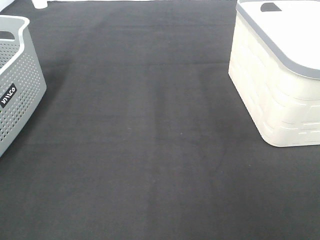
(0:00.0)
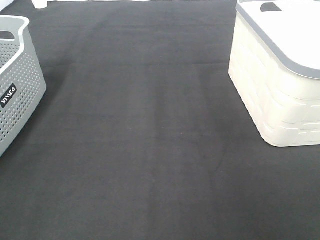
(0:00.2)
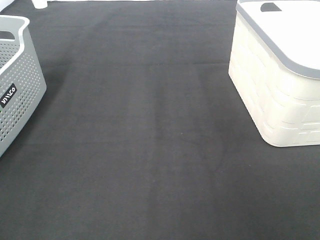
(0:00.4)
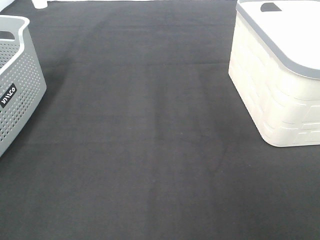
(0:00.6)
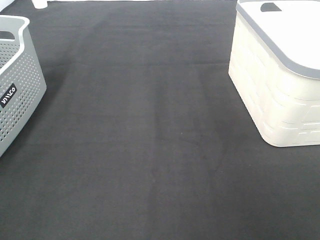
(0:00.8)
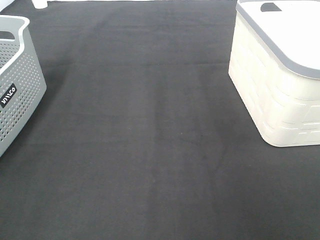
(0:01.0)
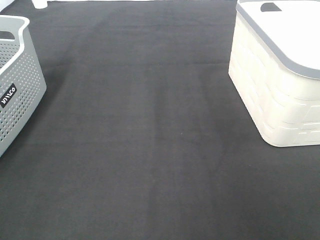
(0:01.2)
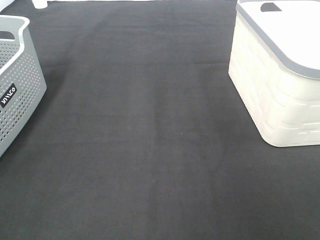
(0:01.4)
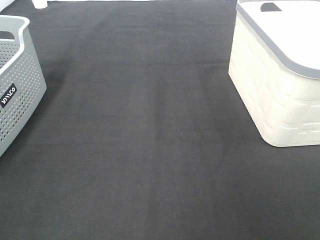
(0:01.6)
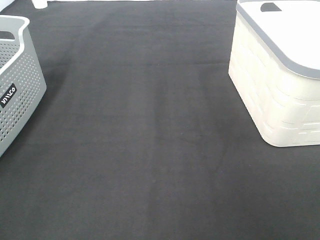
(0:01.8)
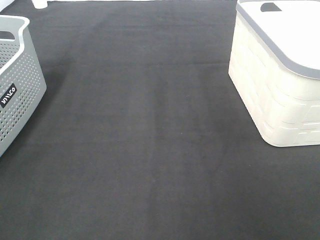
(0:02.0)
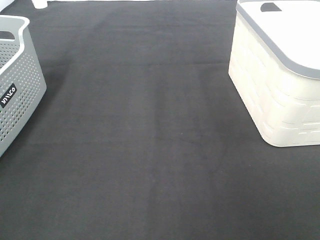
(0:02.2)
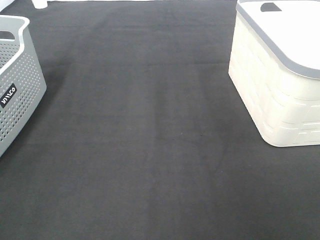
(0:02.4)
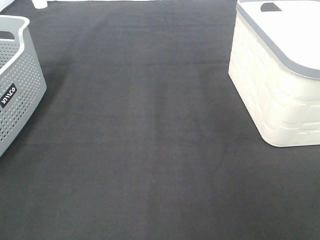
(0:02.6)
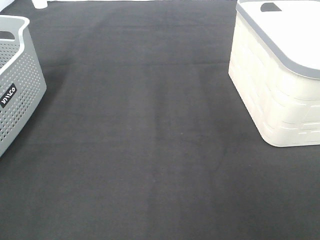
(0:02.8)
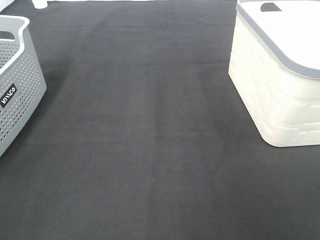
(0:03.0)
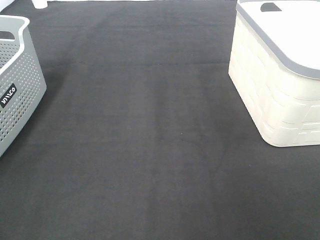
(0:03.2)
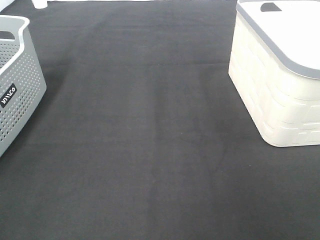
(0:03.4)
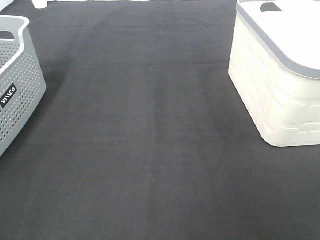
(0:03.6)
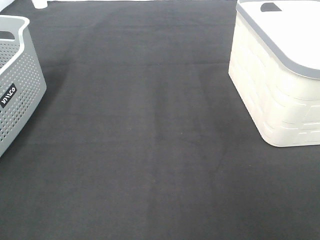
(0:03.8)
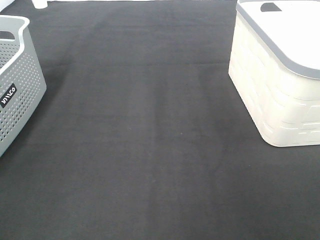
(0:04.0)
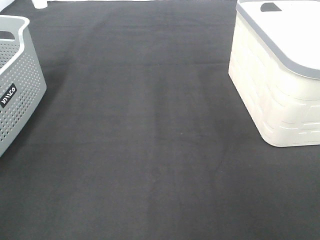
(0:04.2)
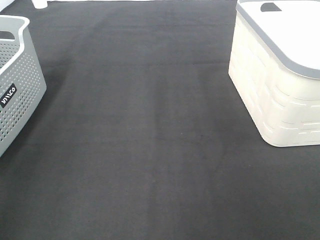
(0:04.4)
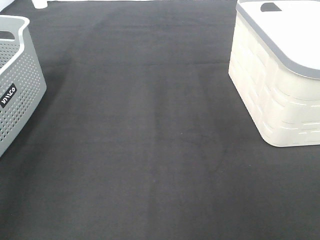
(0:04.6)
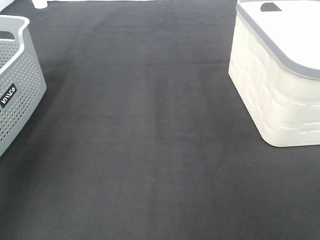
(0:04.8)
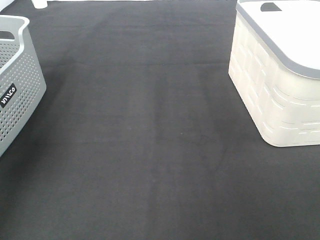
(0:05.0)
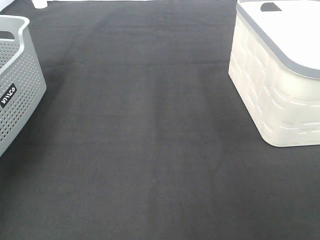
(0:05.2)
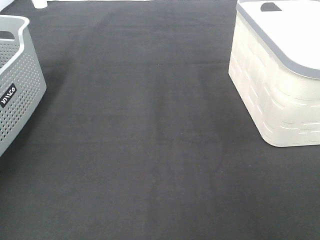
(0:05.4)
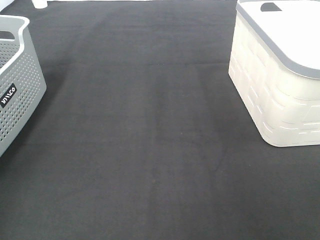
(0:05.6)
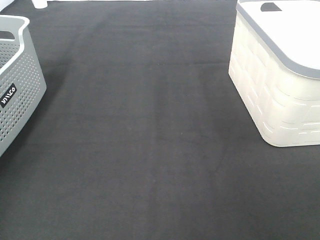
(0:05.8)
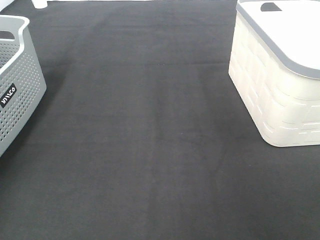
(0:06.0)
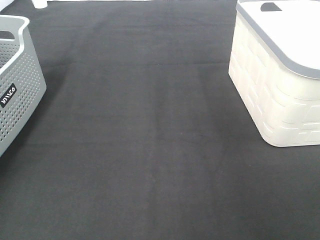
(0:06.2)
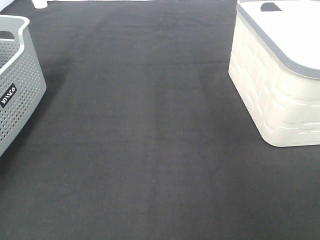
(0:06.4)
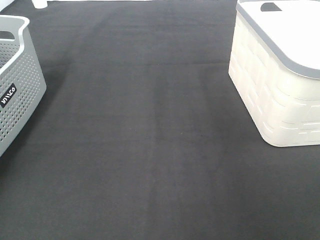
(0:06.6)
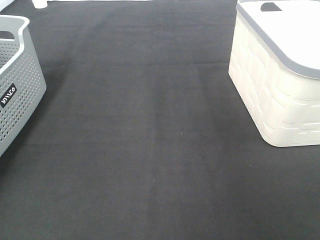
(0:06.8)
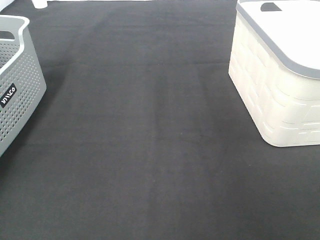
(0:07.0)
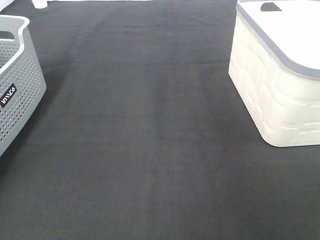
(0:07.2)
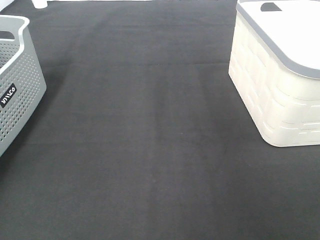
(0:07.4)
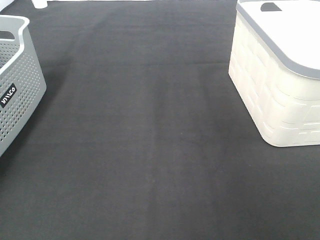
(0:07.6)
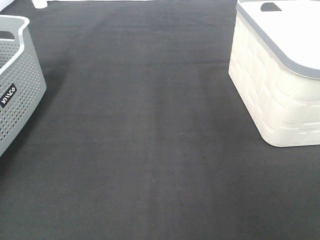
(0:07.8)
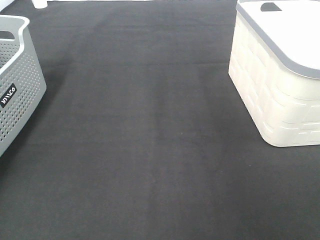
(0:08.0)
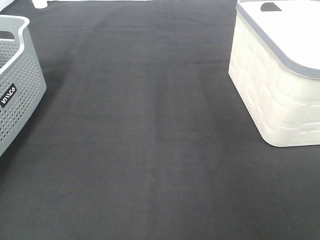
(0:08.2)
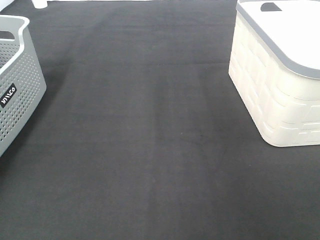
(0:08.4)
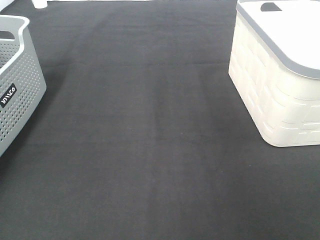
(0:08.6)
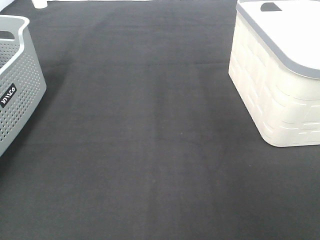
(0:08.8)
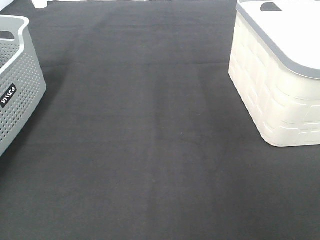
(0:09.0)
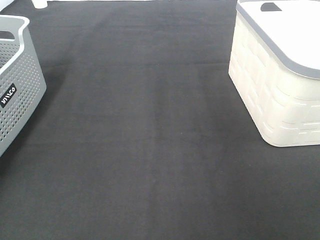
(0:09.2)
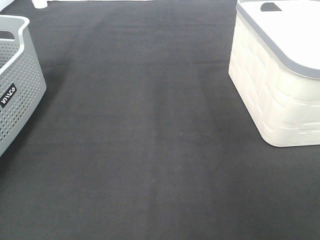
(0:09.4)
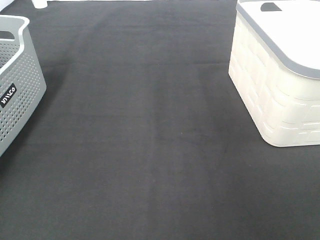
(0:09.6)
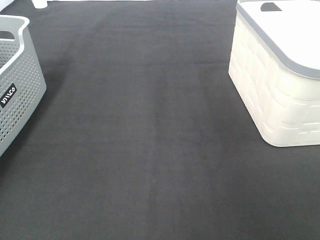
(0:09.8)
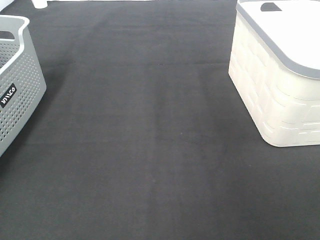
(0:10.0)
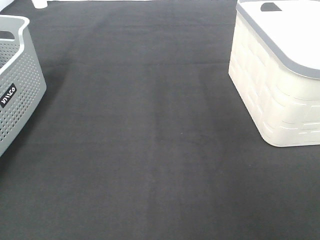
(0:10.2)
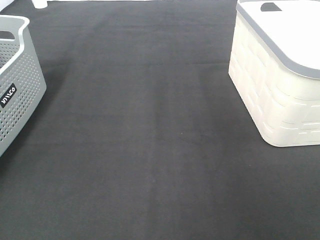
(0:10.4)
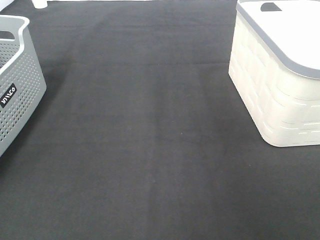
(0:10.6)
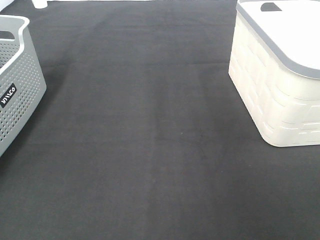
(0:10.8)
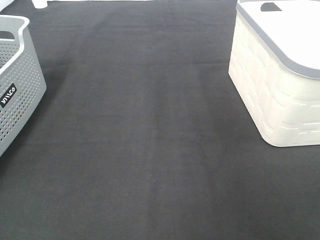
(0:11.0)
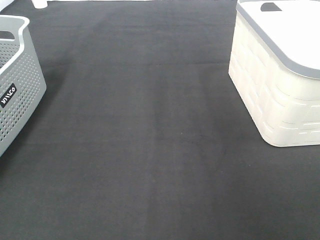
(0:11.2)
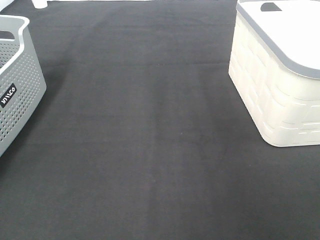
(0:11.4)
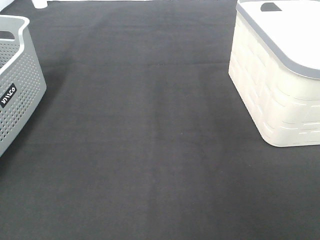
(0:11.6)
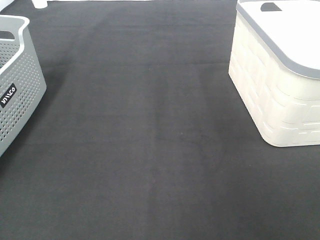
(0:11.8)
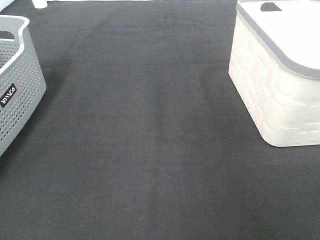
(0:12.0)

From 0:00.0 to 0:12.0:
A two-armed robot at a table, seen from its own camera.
Task of the whole recording: Remove the towel and place it.
From 0:00.0 to 0:03.0: Both grippers stay put.

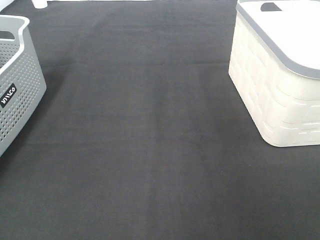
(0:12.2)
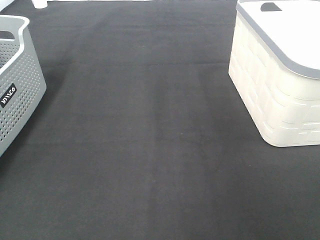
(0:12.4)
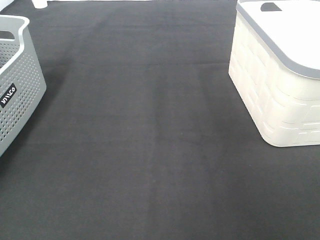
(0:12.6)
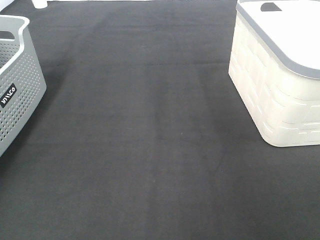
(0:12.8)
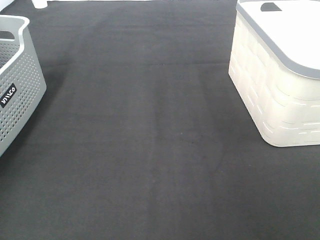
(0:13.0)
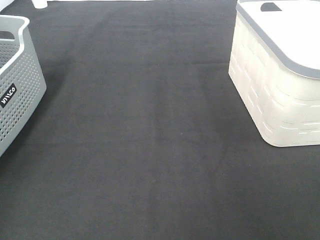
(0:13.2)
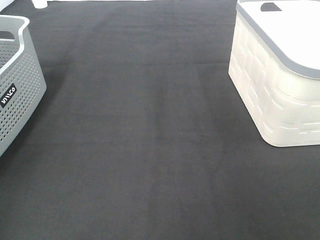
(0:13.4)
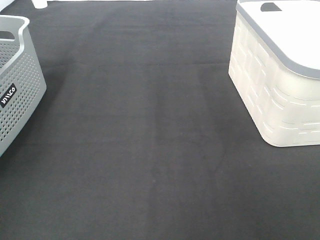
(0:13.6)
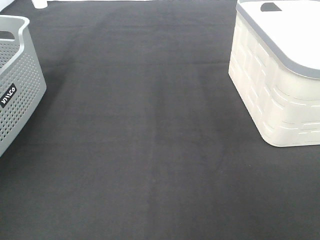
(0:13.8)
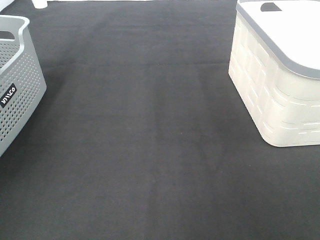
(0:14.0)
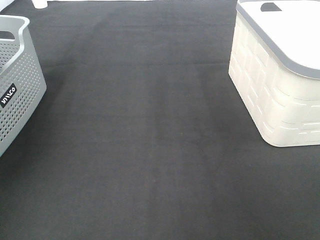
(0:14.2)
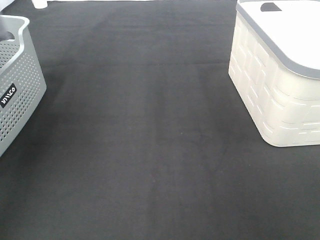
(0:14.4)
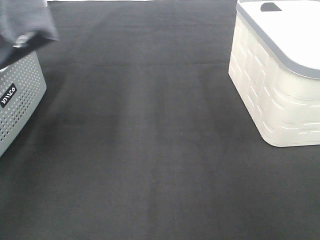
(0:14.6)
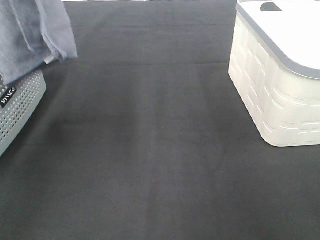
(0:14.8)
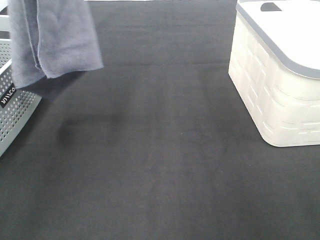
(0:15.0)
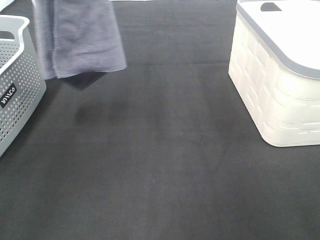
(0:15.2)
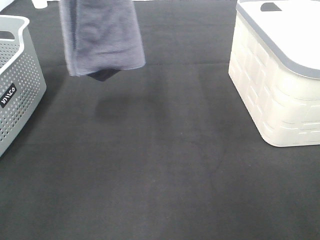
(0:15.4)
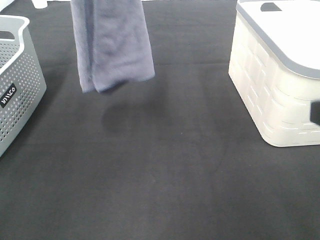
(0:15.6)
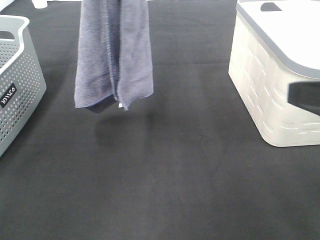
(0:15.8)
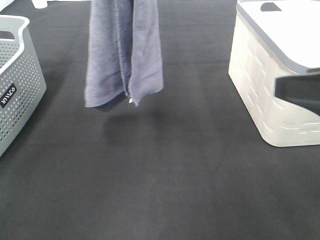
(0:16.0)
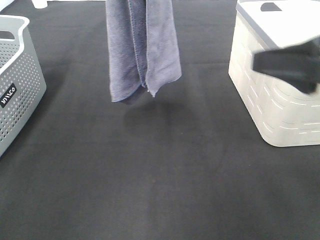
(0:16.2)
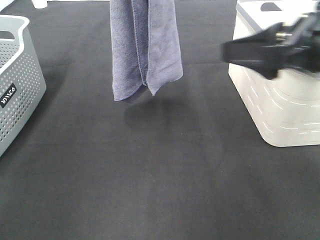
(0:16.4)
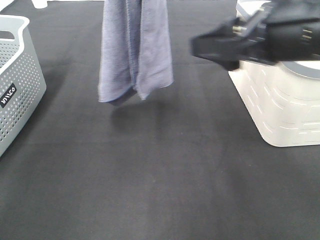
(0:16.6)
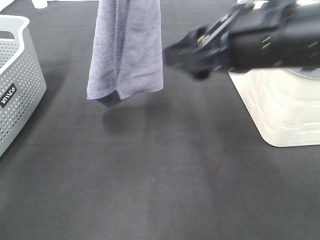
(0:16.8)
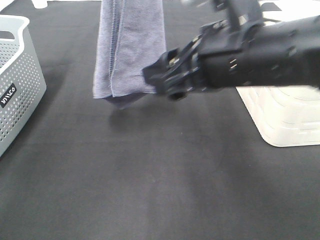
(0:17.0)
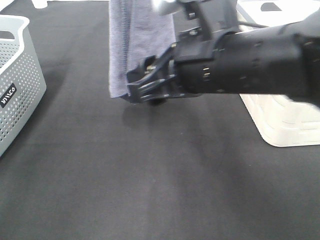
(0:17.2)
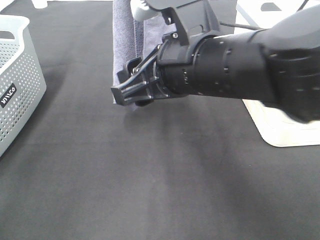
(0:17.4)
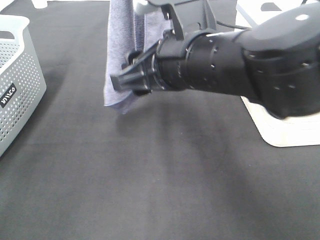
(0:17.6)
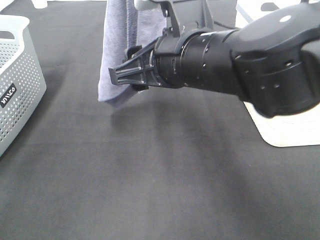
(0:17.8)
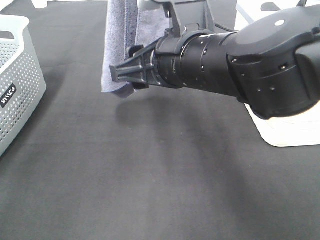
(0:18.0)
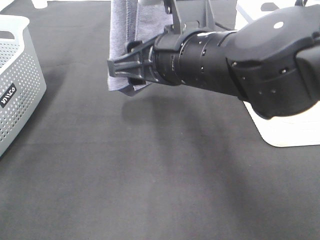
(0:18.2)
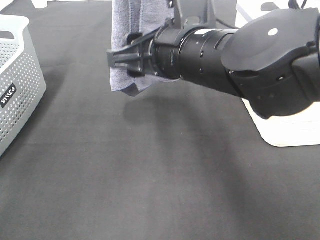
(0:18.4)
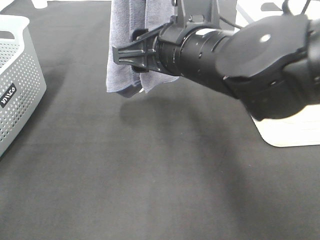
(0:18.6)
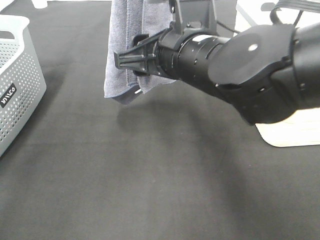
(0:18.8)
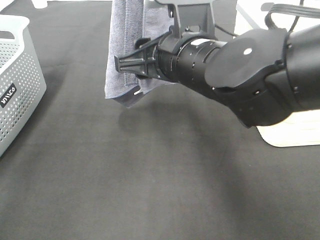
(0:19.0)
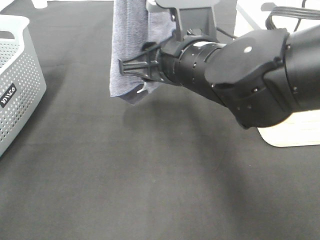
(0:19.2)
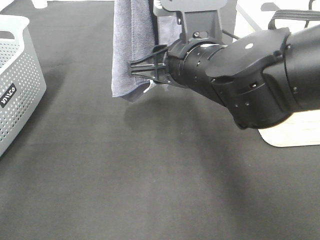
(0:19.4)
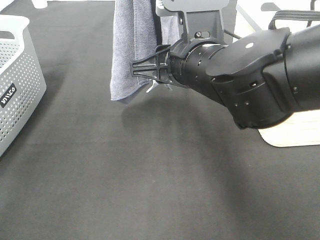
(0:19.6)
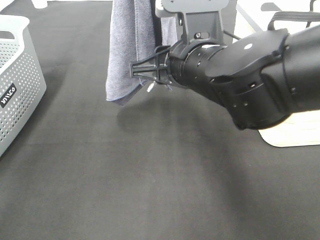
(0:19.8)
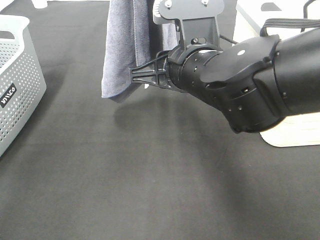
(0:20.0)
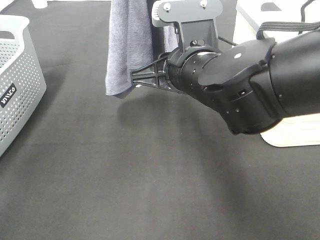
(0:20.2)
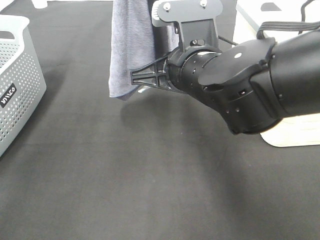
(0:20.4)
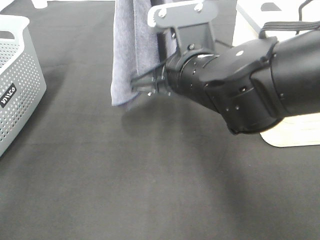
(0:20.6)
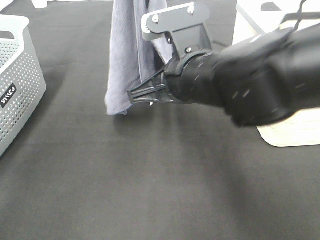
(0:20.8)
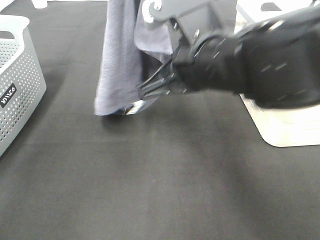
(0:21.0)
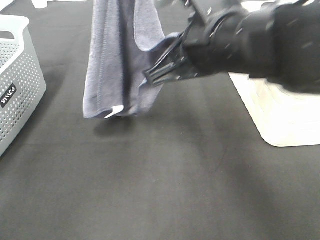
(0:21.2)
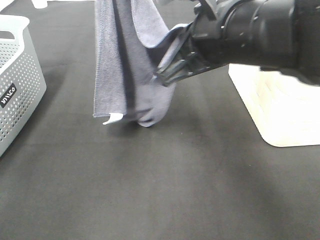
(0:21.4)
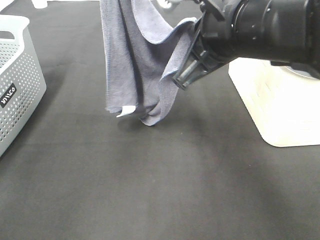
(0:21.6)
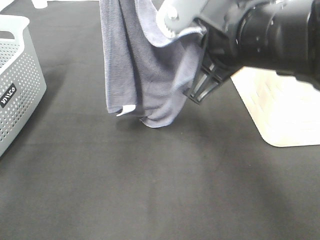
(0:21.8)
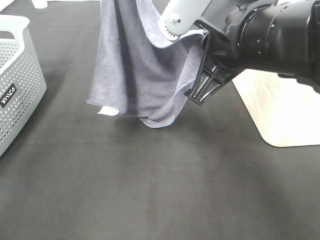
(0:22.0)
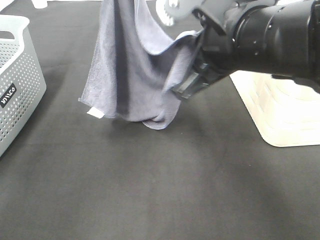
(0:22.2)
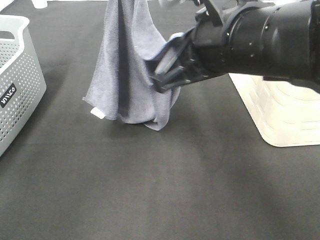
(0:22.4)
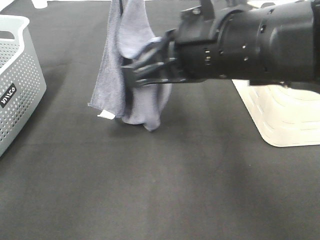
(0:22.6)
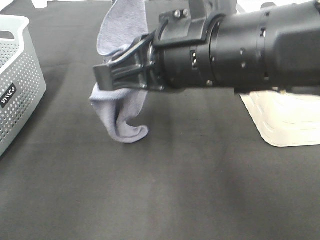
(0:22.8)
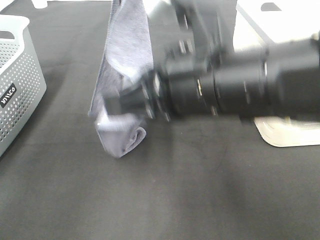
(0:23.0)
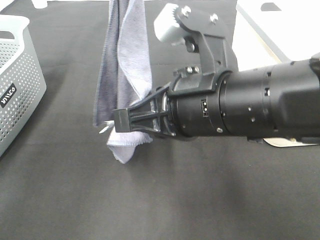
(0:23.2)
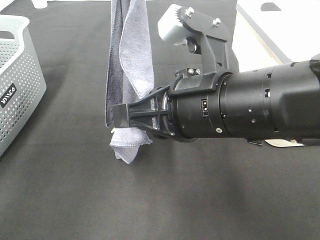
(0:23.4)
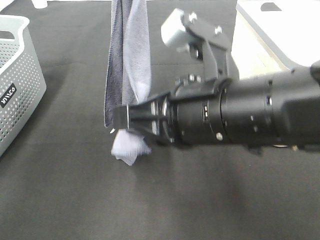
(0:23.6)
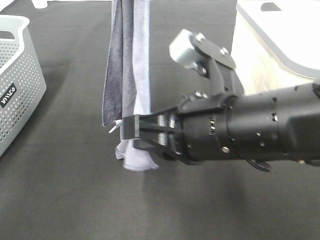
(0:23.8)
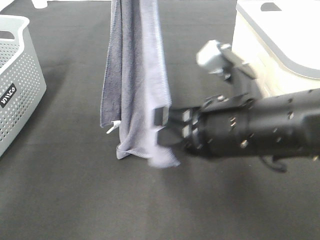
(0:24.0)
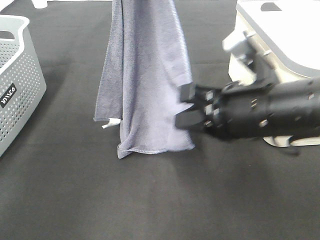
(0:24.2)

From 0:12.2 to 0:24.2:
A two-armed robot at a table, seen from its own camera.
Task of the whole recording: Remove the towel and place it.
Step, from 0:13.2 to 0:21.2: Right hand: grab a corner of the grey towel and straighten it.
From 0:13.8 to 0:15.2: The left gripper travels to the right by roughly 20 cm, while the right gripper shifts roughly 5 cm forward.
From 0:15.2 to 0:16.6: The right gripper goes approximately 20 cm forward and to the left. The left gripper is displaced to the right by some 10 cm.
From 0:16.6 to 0:18.2: The right gripper heads to the left, covering about 10 cm.
From 0:18.2 to 0:19.8: The grippers stay close to where they were, moving slightly.
From 0:19.8 to 0:21.2: The right gripper goes some 5 cm upward, and closes its fingers.
From 0:22.6 to 0:24.2: The right gripper shifts some 10 cm downward and to the right.
